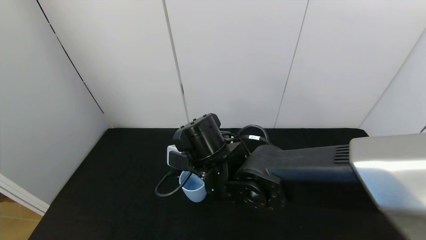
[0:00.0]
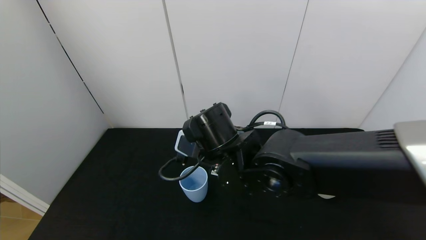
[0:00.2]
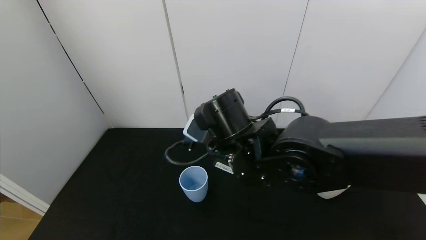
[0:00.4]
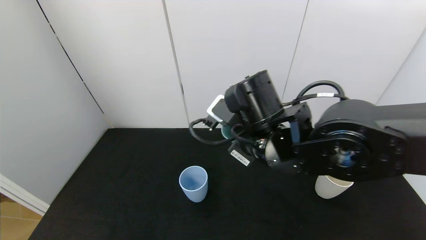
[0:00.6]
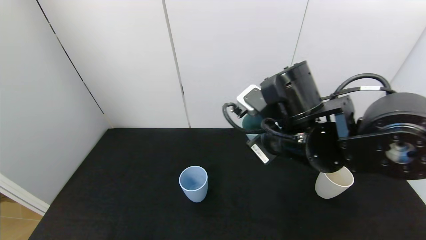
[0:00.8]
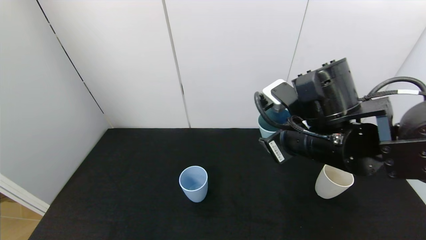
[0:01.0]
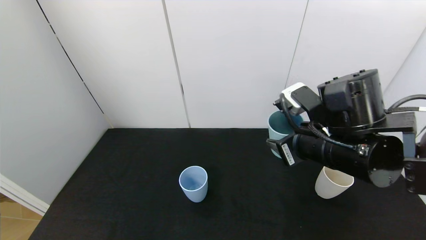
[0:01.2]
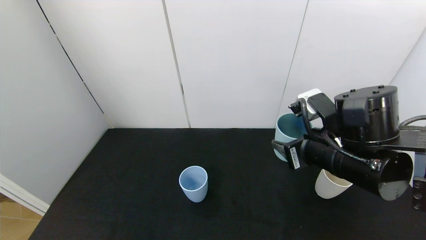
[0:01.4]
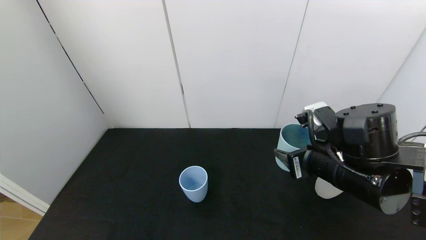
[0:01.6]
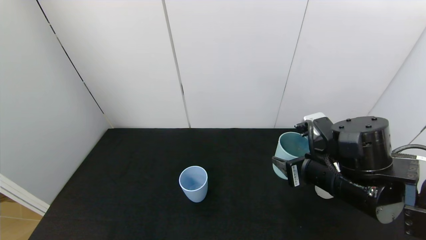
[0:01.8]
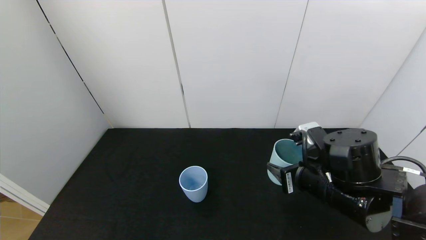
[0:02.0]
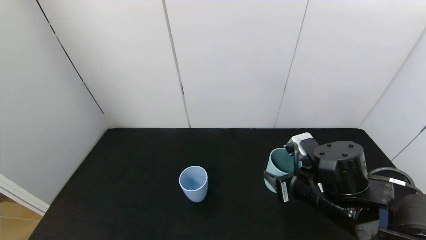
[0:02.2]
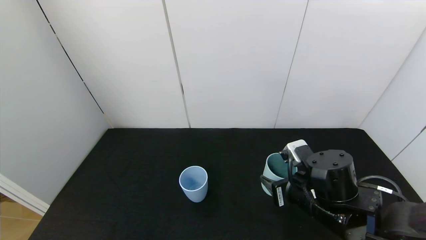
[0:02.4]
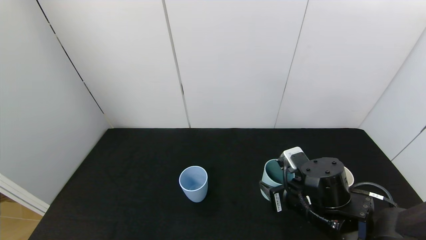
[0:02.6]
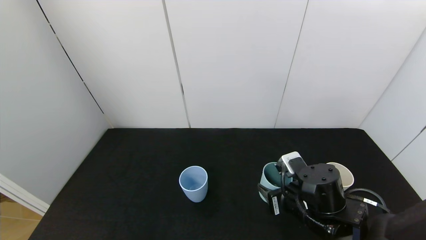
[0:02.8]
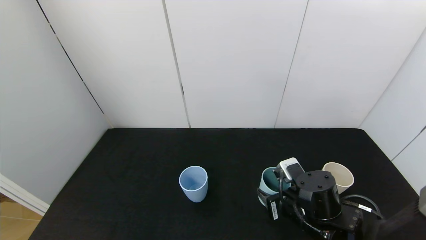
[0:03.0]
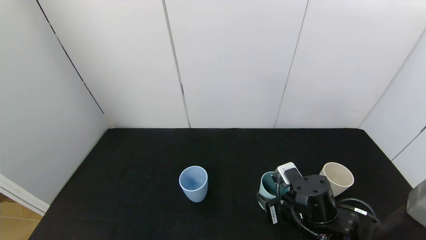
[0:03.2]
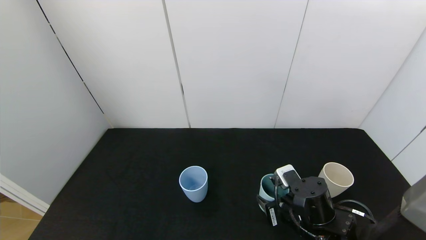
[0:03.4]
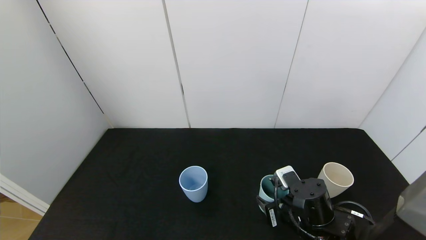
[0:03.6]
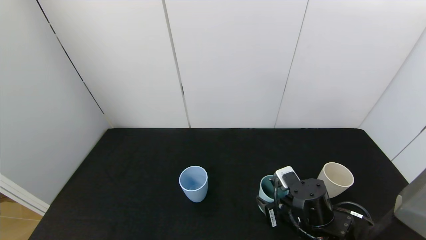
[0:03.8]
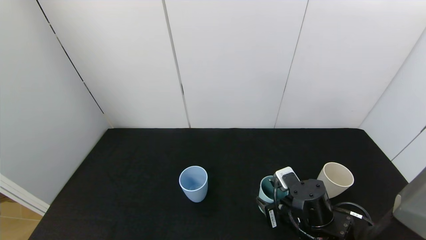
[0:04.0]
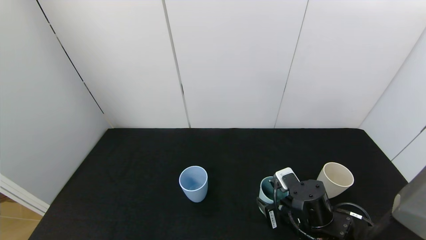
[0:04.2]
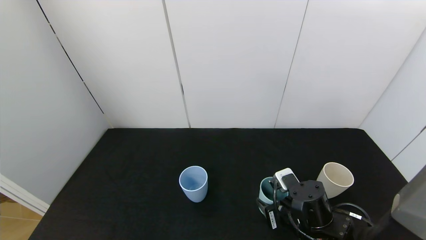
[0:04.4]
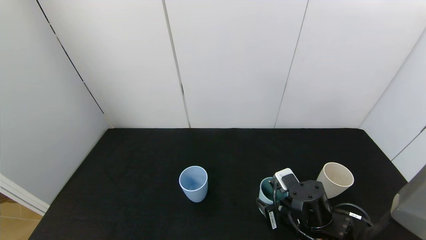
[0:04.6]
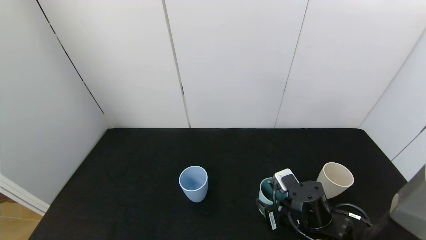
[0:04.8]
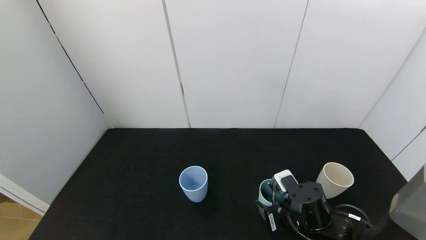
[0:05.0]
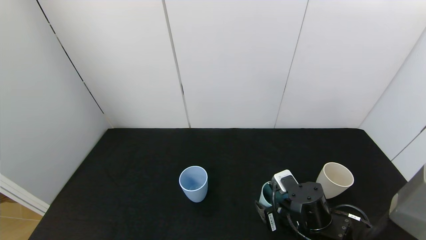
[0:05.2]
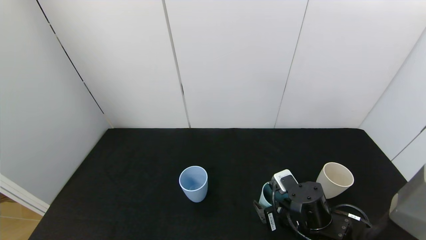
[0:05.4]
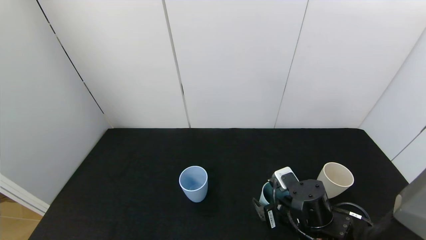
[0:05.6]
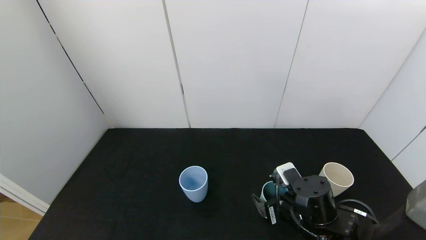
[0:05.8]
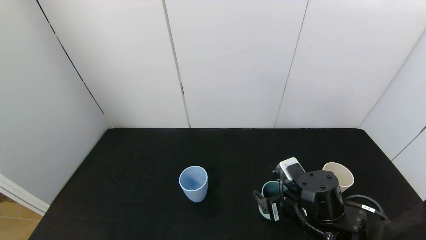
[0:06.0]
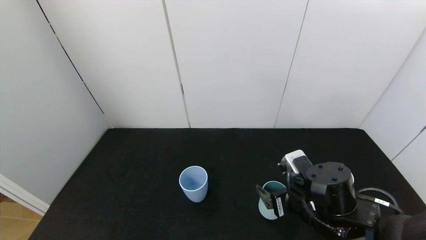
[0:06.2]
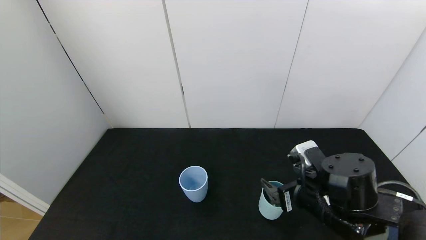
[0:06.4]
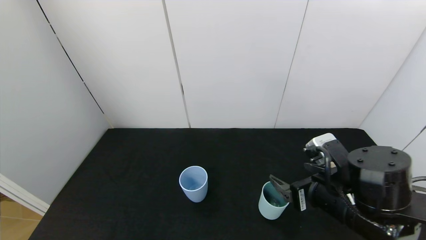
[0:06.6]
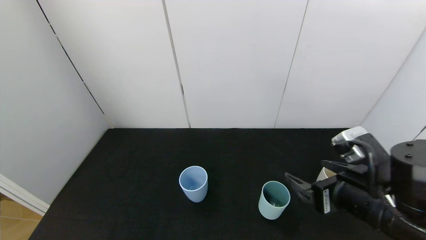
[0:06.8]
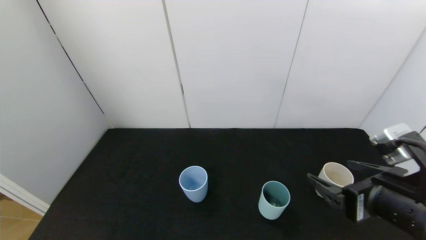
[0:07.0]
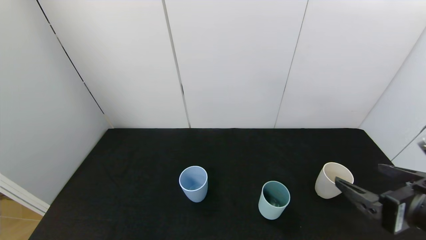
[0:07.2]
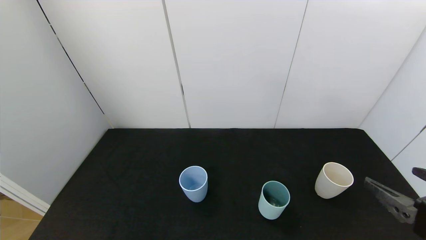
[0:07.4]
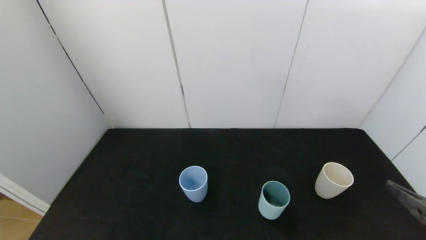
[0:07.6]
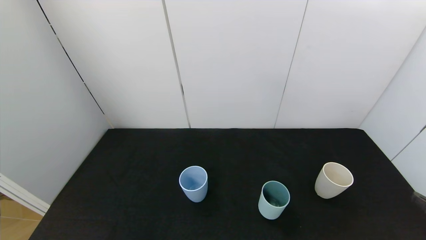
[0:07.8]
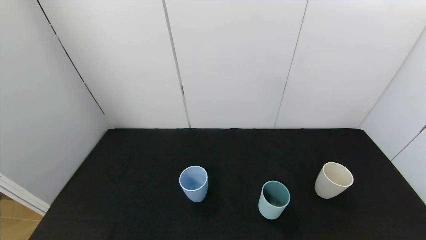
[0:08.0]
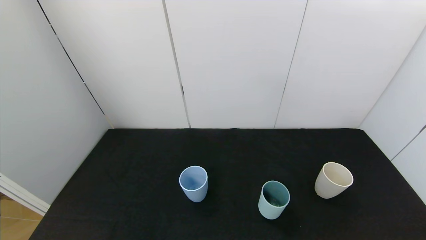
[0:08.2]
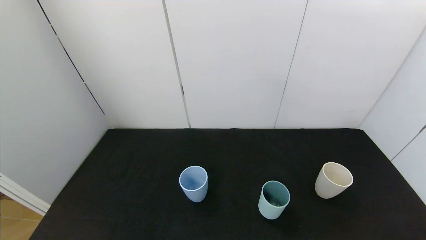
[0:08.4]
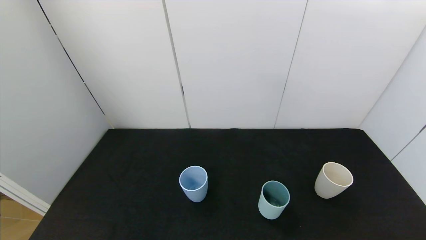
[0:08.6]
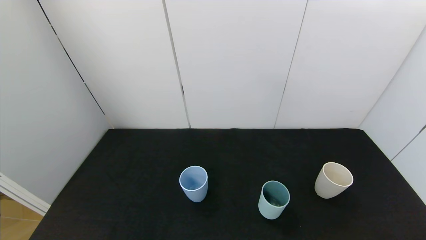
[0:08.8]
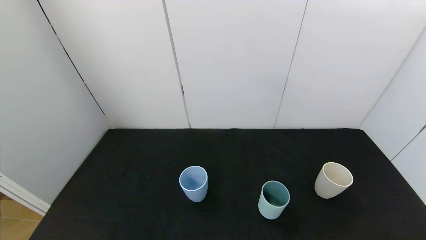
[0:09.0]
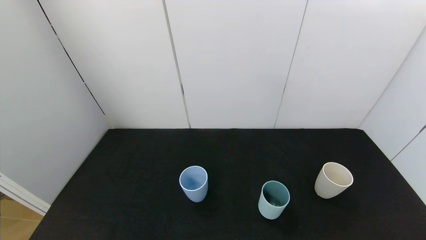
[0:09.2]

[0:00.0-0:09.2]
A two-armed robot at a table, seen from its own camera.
Task of the whole recording: use the gripper to pour the water into the other two cups on black table.
Step, 0:00.0 to 0:06.2: Place the green cup with the right gripper.
0:00.0 to 0:01.6: The right gripper shifts about 20 cm to the right.
0:01.6 to 0:03.0: The right gripper goes roughly 10 cm downward.
0:03.0 to 0:04.6: The grippers move only a little.
0:04.6 to 0:06.2: The right gripper heads upward, covering about 5 cm, and opens its fingers.
0:06.2 to 0:07.6: The right gripper shifts approximately 25 cm to the right, backward and upward.
